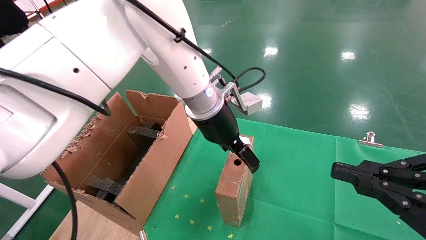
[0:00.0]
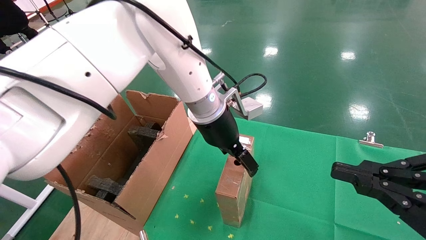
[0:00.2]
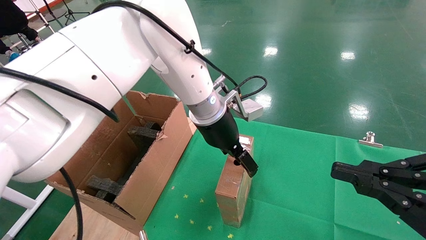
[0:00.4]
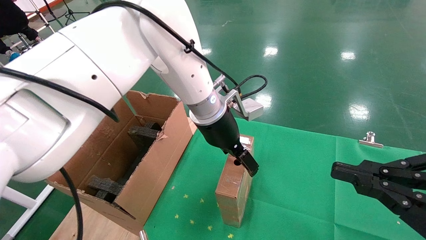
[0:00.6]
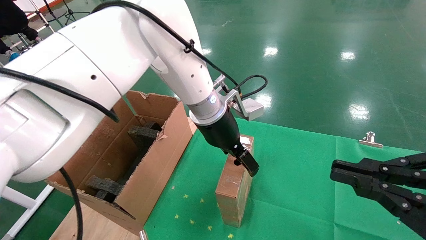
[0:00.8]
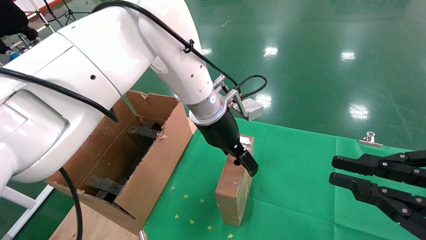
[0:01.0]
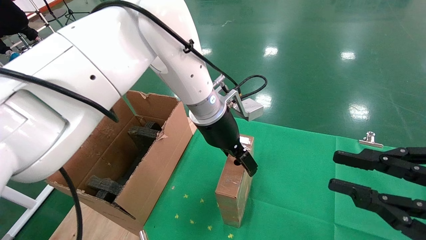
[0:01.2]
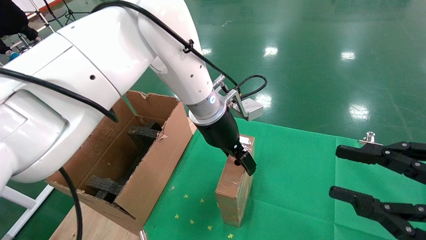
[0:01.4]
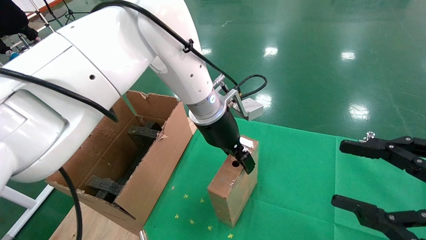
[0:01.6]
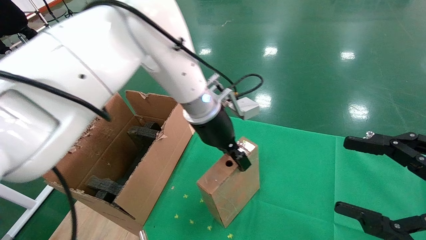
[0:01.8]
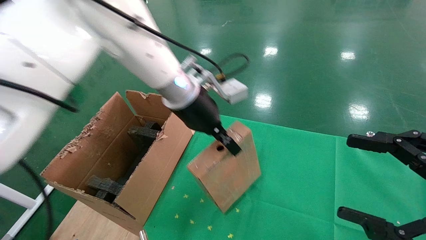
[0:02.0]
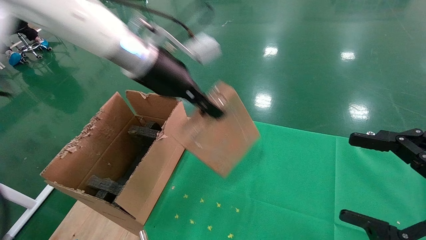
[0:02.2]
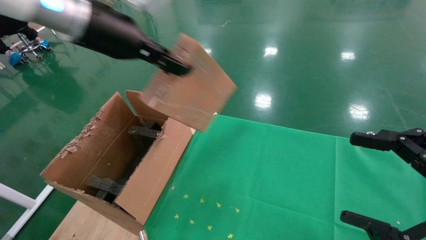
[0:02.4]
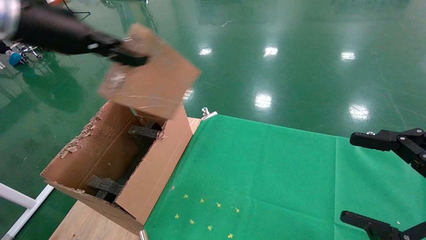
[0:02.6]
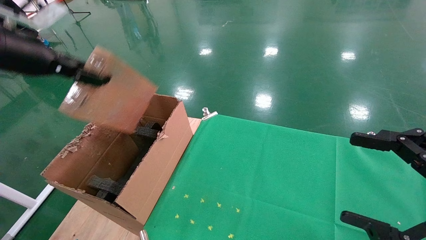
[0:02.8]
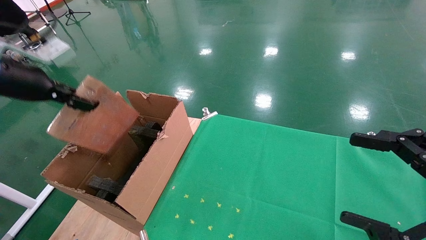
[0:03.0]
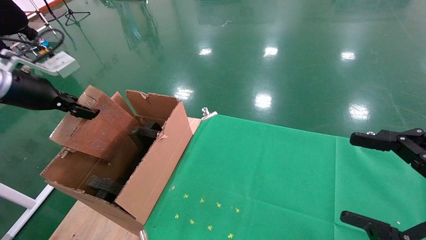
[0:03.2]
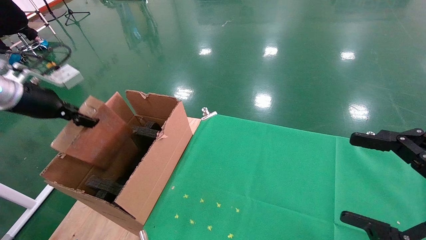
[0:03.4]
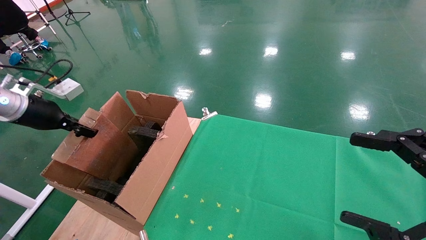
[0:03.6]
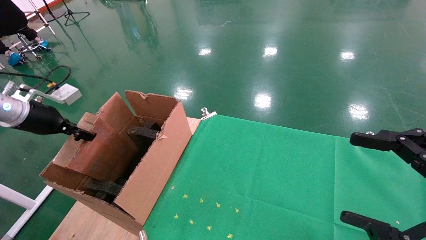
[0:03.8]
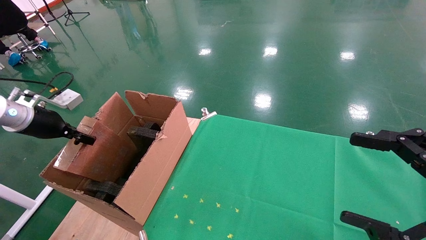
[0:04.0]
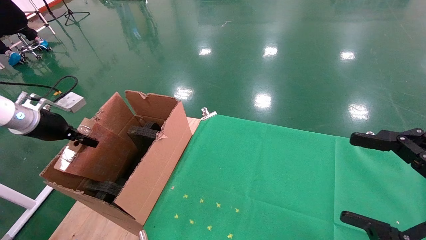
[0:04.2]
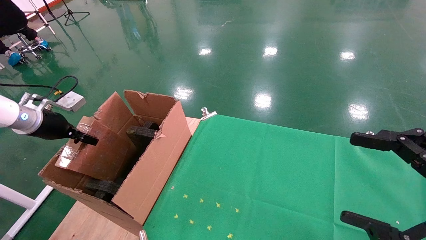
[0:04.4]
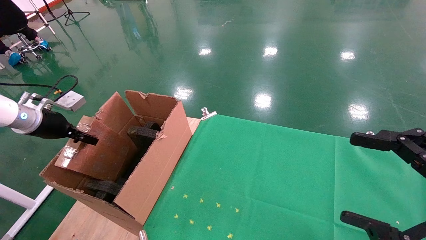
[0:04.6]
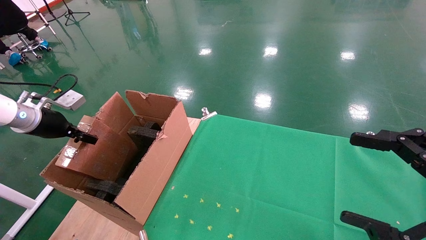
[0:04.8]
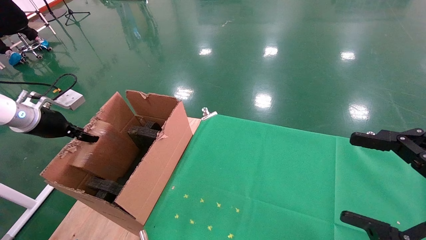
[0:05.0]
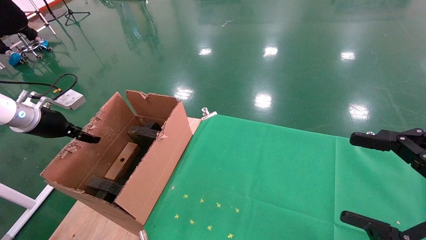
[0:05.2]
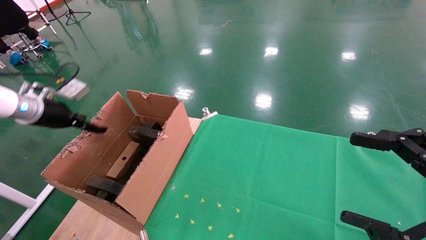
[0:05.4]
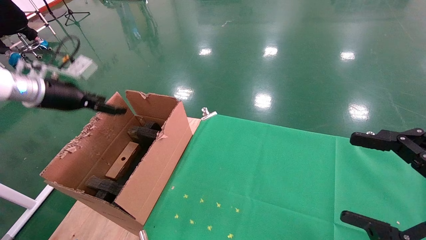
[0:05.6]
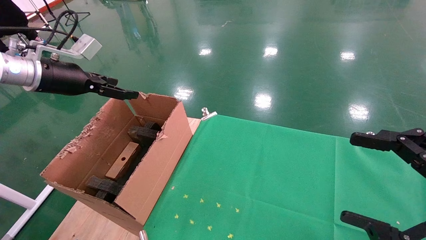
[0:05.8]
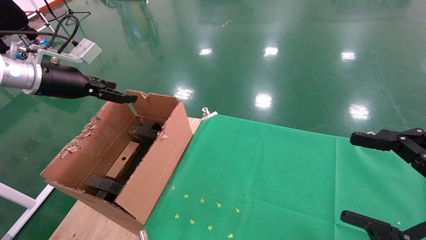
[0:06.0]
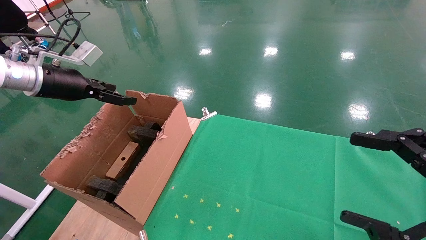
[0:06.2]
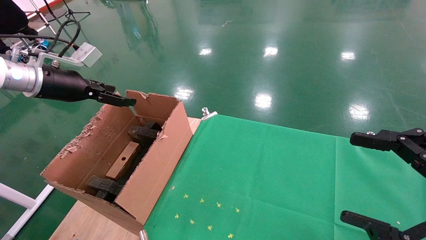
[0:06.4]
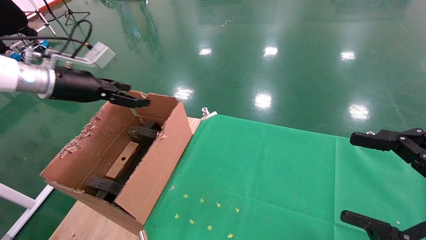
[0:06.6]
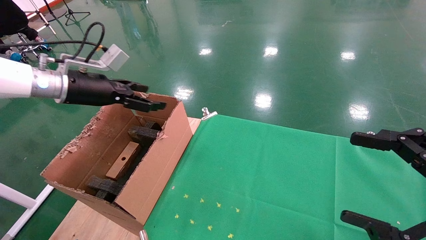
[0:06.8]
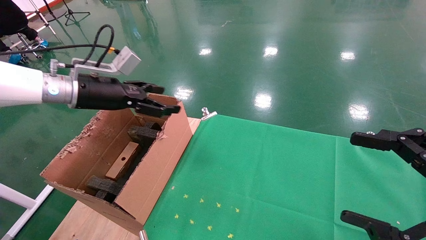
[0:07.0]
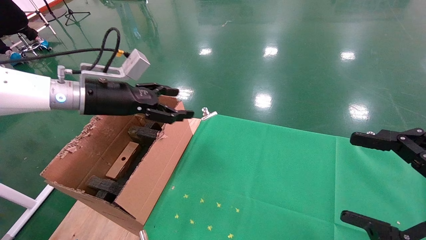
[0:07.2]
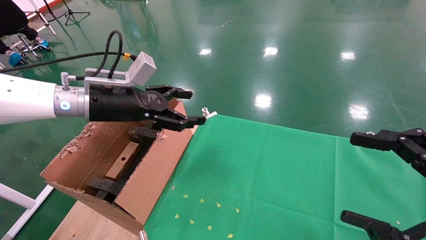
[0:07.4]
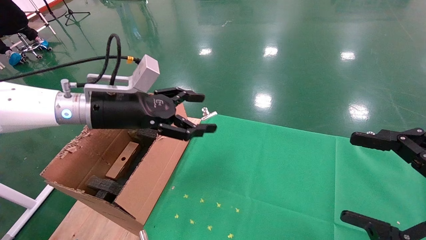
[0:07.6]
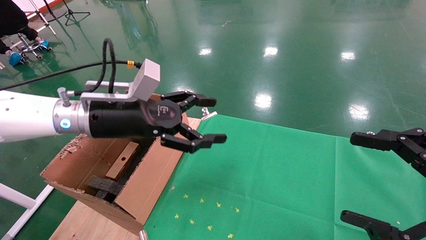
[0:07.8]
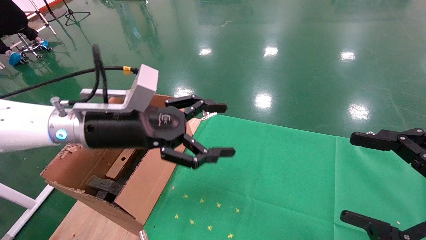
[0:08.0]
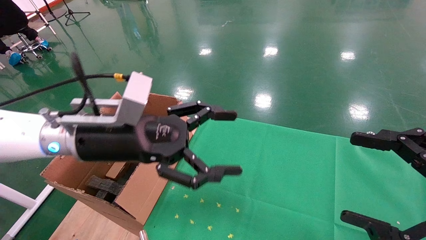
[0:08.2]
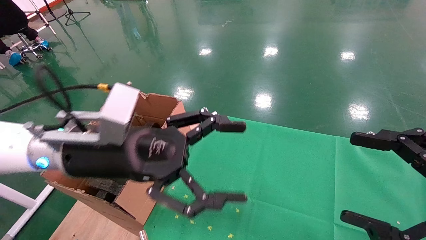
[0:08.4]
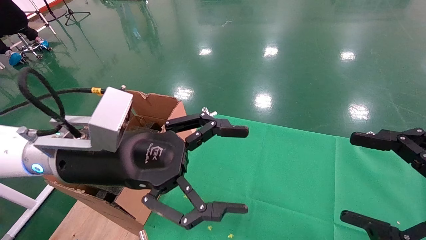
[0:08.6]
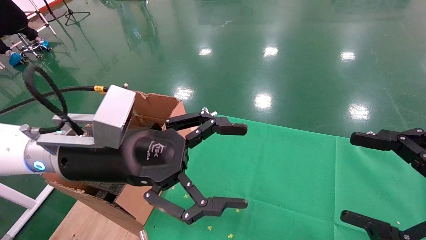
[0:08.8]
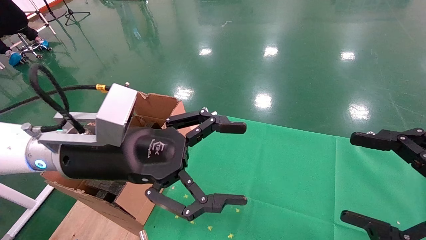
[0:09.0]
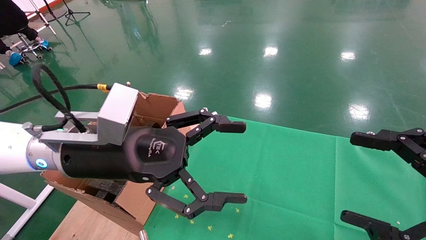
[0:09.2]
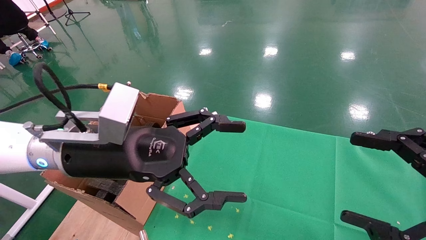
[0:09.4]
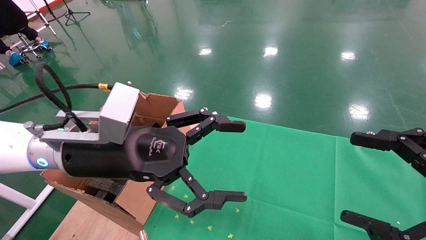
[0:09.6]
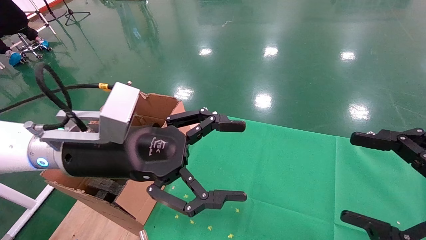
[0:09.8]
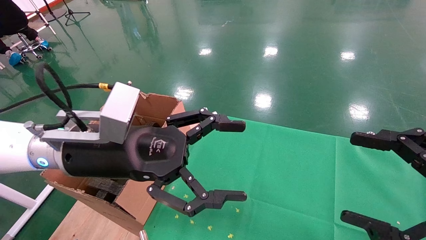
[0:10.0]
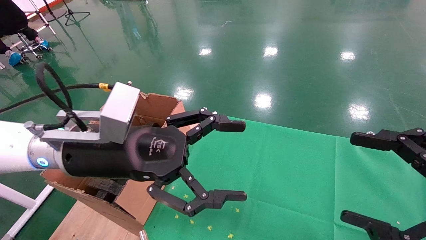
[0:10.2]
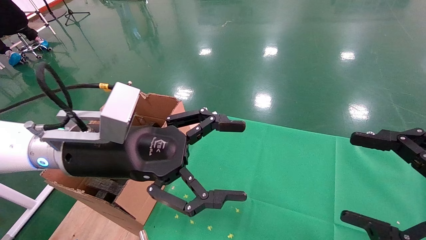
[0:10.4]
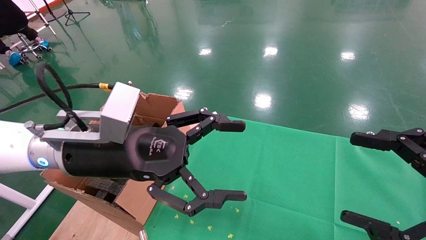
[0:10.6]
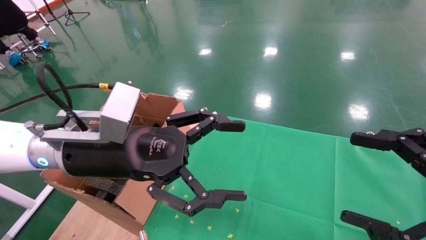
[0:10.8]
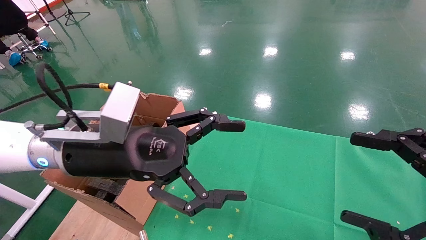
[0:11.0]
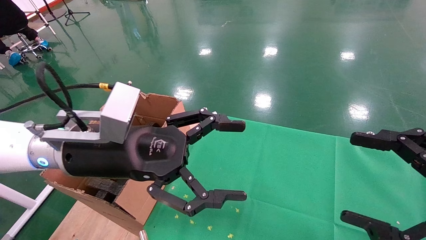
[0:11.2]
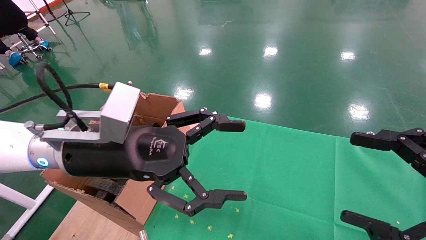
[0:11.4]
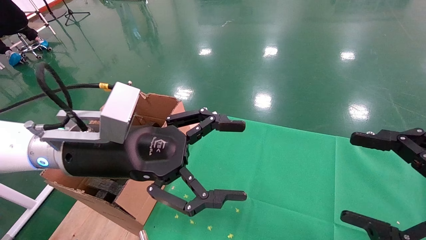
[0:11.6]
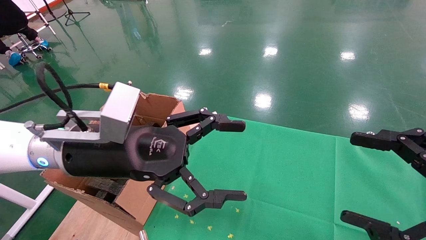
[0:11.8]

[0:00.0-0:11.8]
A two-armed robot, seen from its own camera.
Task of the whole recording: using a robotic arm to pick up a cardboard box and palace it the carton.
Step, 0:01.8 to 0:05.0: Place the mouse and the power cord paper box into the container.
0:01.4 to 0:03.0: The right gripper opens. Meanwhile the left gripper heads to the left, covering roughly 35 cm, and closes up.
0:03.0 to 0:04.4: The left gripper is displaced downward, to the left and forward by approximately 20 cm.
0:04.4 to 0:06.0: The left gripper goes about 15 cm upward and to the right, and opens.
0:06.0 to 0:07.4: The left gripper goes roughly 15 cm to the right.
0:07.4 to 0:08.8: The left gripper is displaced backward and to the right by roughly 15 cm.
0:08.8 to 0:11.8: Both grippers stay about where they are.

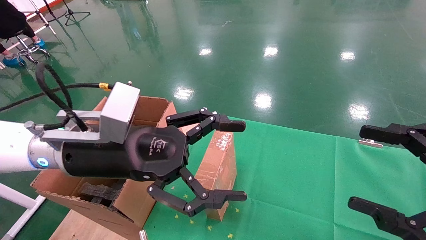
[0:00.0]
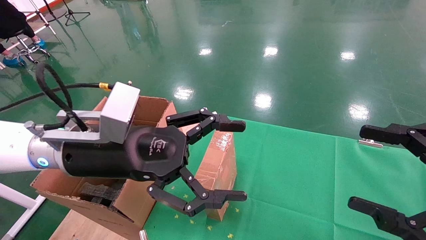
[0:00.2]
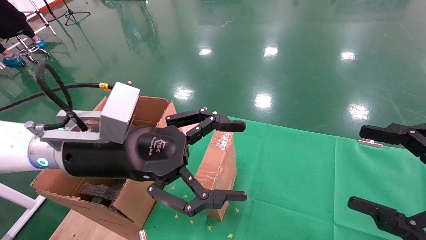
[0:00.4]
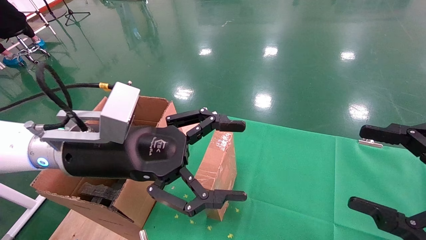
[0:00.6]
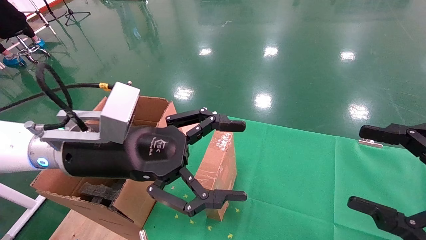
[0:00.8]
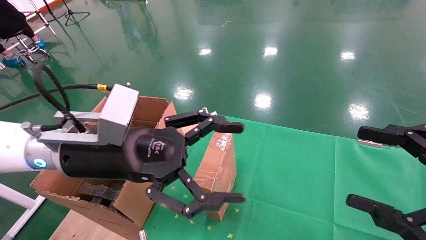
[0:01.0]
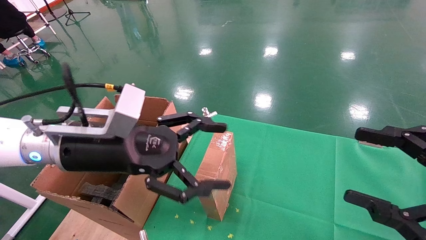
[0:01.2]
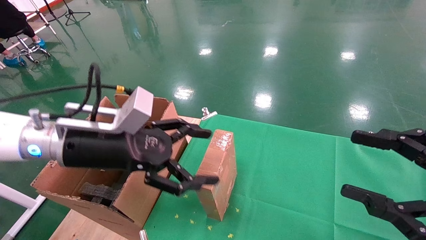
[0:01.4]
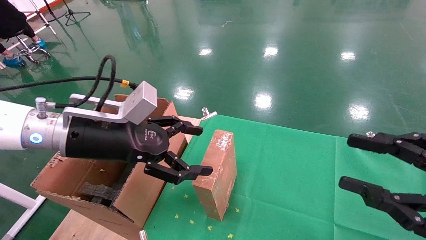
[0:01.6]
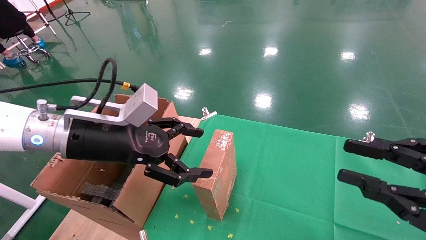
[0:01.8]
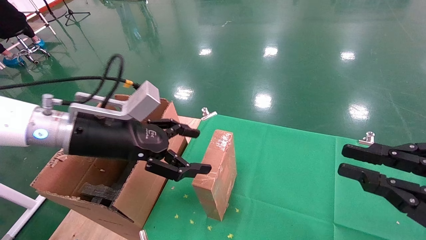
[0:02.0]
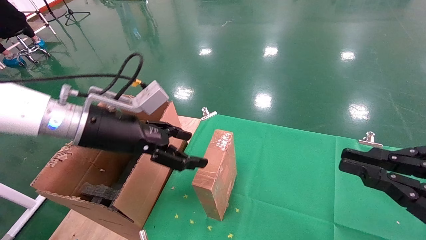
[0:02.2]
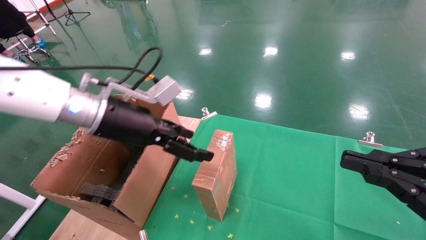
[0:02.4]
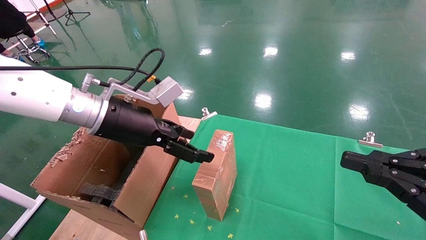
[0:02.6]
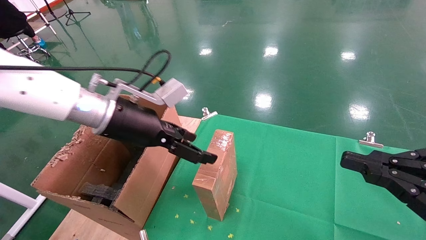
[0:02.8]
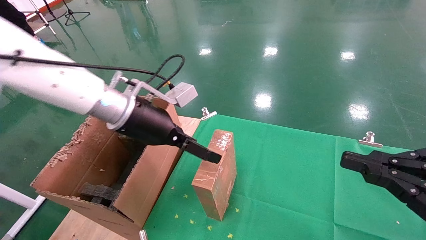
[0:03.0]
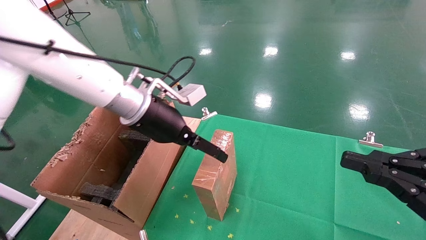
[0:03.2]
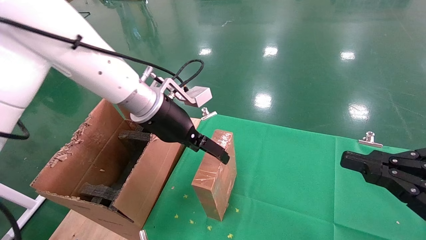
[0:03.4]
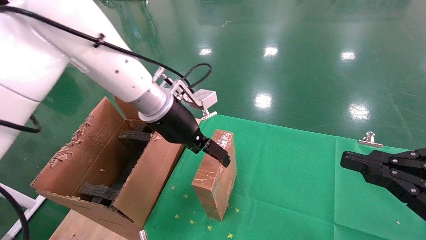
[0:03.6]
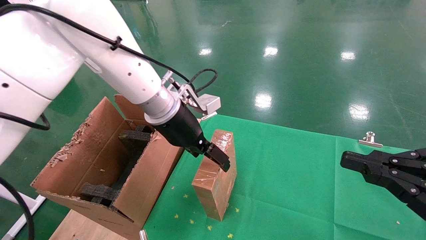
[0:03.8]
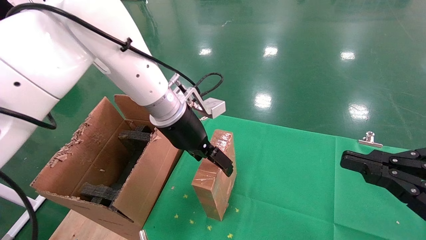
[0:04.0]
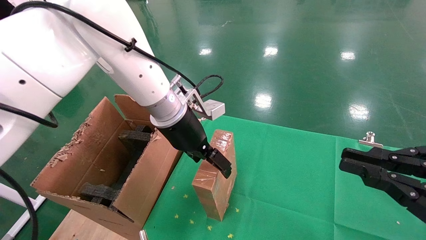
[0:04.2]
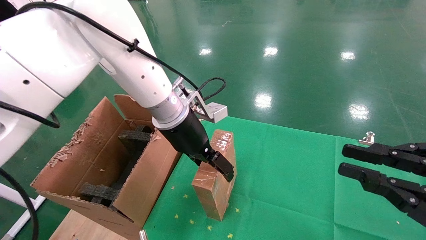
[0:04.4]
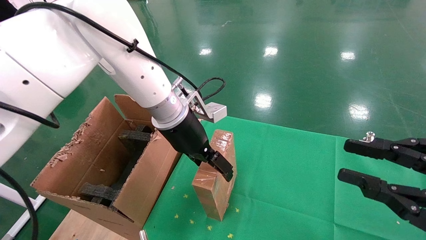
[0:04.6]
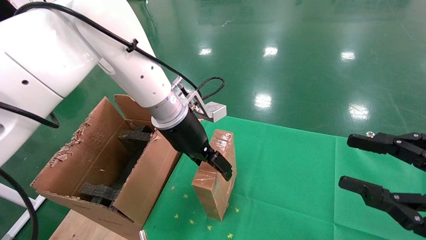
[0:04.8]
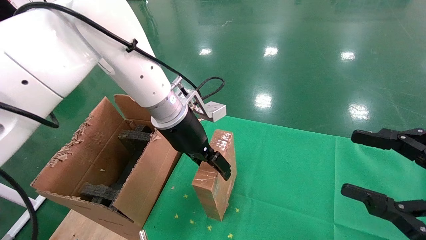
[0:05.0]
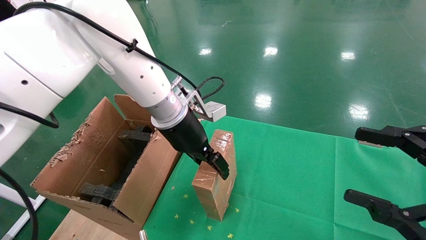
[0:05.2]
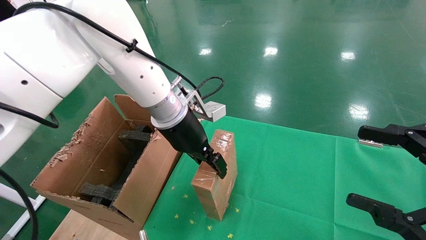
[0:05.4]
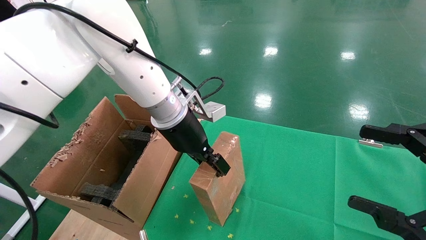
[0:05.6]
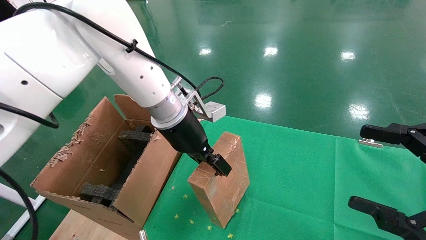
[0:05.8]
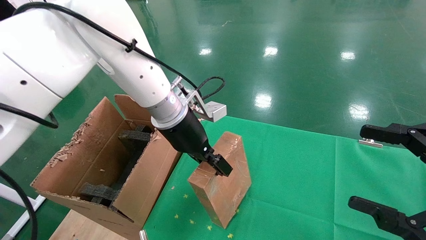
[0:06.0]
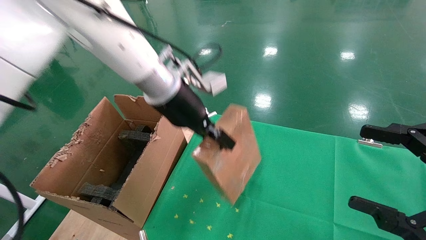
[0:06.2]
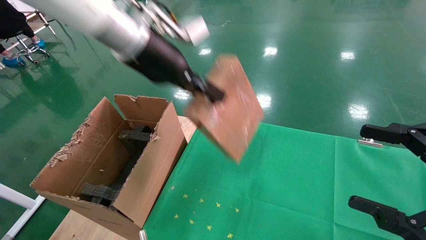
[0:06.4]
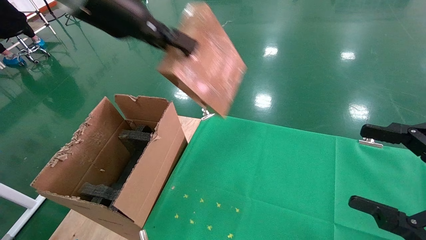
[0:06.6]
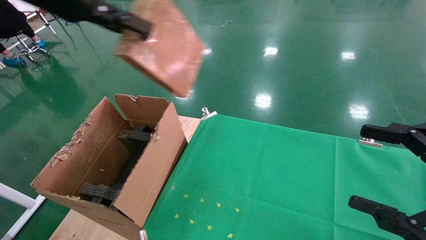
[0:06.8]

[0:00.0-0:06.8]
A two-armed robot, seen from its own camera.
Task of the whole recording: using a robotic arm to pick up a cardboard box and palace it the carton.
Step, 0:01.2 to 0:05.8: Pick up the mouse and the power cord paper box.
0:01.4 to 0:02.8: The left gripper shifts roughly 5 cm forward. The right gripper closes.
0:02.8 to 0:04.0: The left gripper travels to the right and forward by roughly 10 cm.
0:04.0 to 0:05.4: The left gripper closes. Meanwhile the right gripper opens its fingers.
0:05.4 to 0:06.8: The left gripper is displaced upward and to the left by roughly 25 cm, and closes up.
